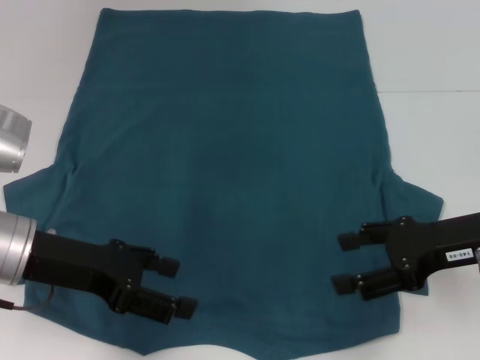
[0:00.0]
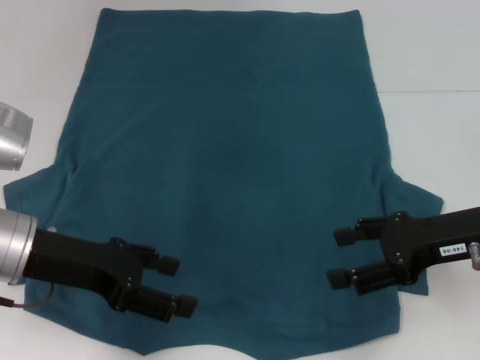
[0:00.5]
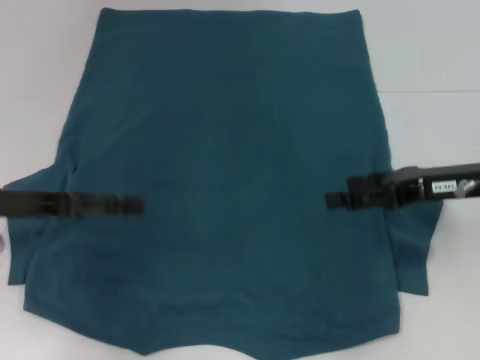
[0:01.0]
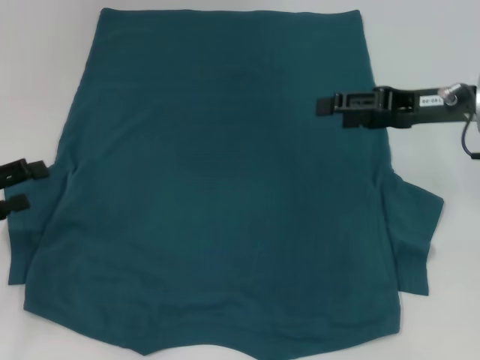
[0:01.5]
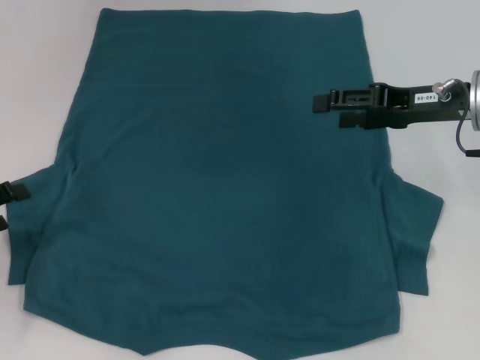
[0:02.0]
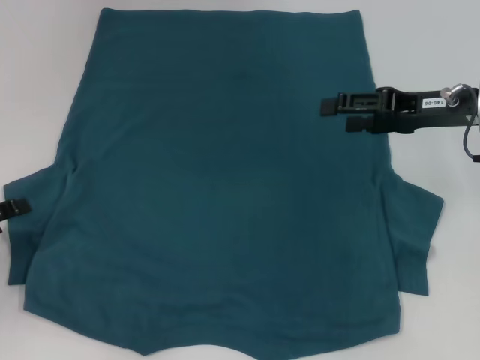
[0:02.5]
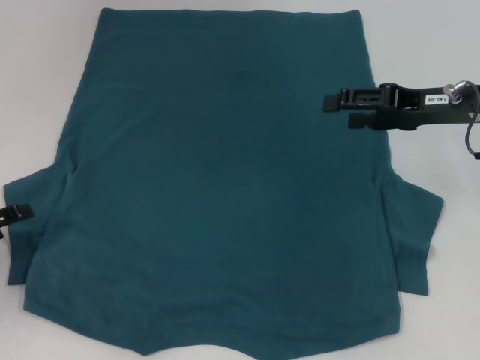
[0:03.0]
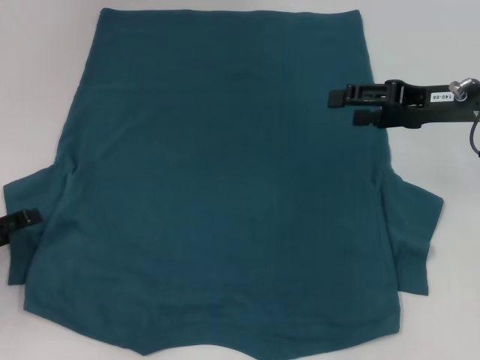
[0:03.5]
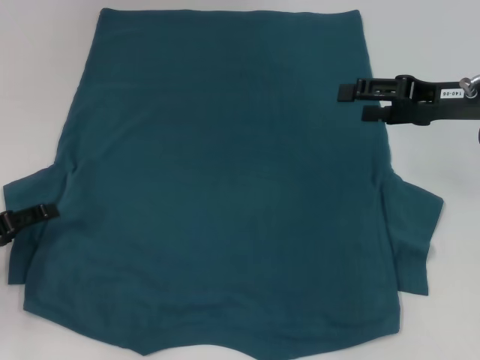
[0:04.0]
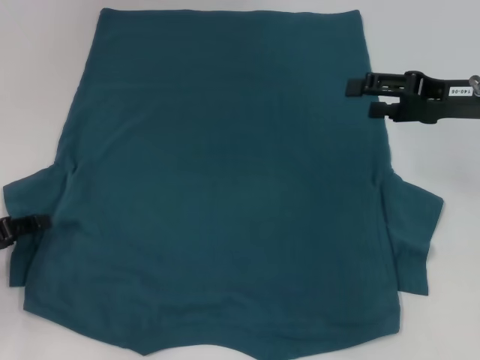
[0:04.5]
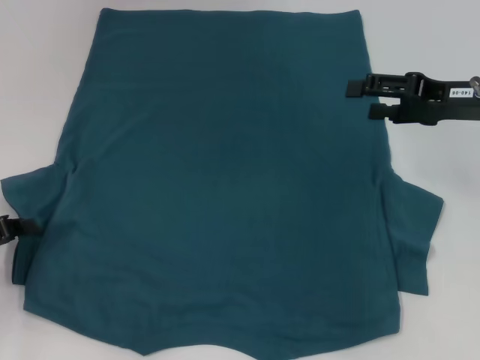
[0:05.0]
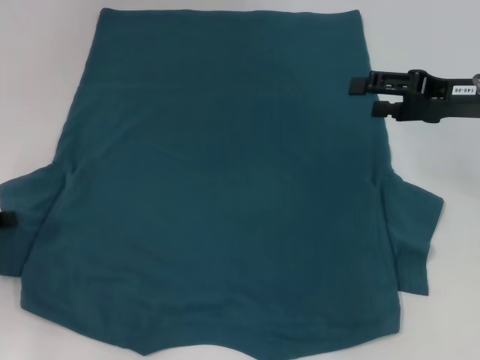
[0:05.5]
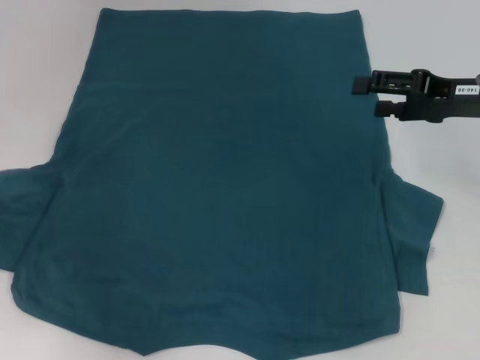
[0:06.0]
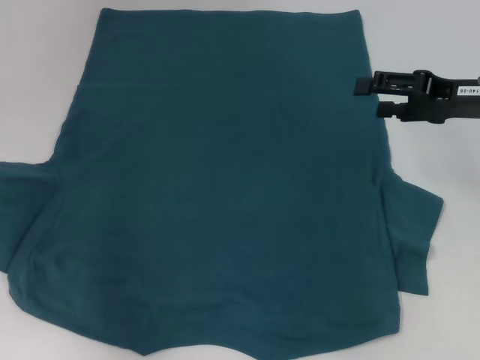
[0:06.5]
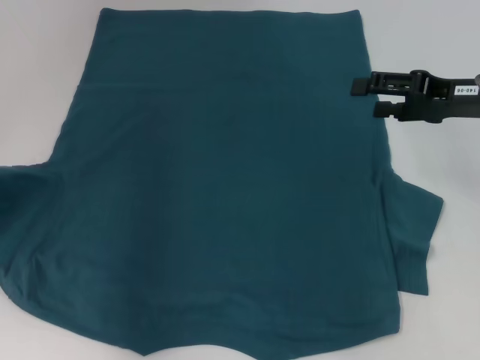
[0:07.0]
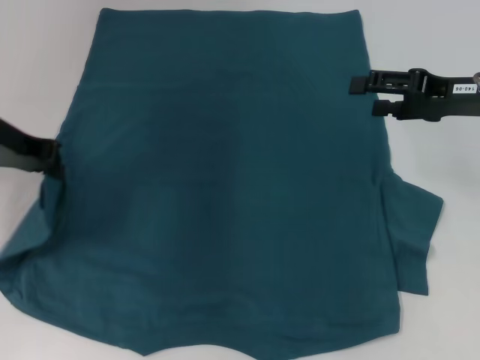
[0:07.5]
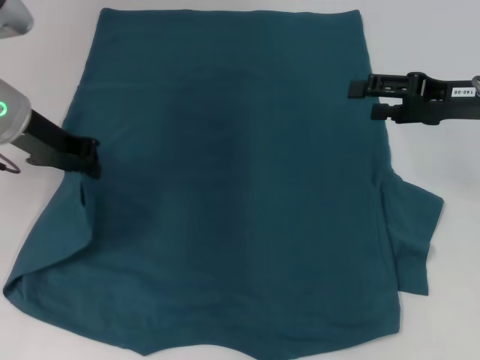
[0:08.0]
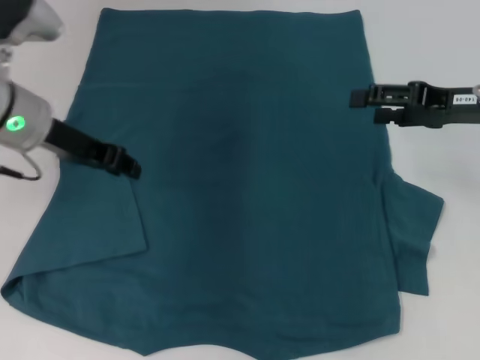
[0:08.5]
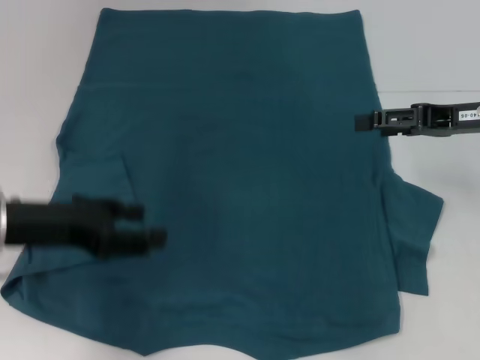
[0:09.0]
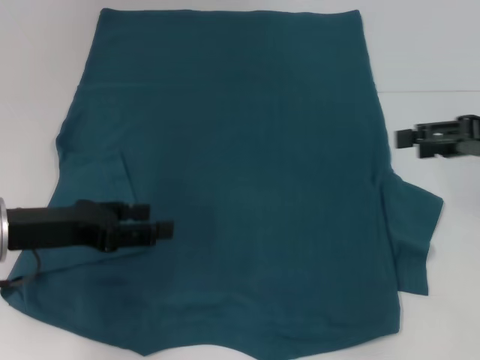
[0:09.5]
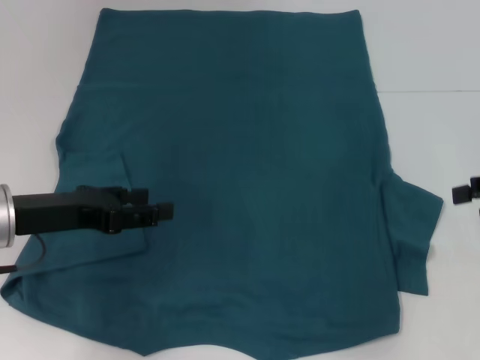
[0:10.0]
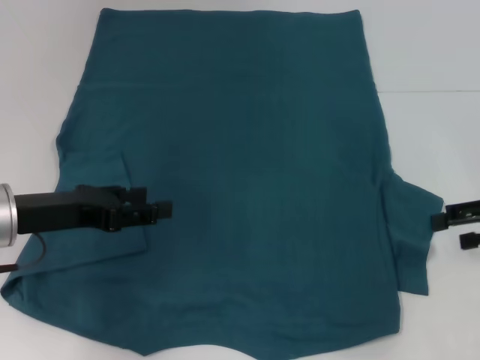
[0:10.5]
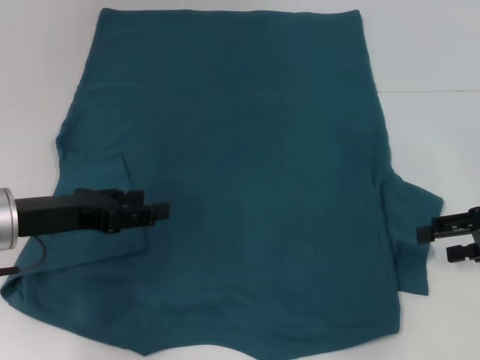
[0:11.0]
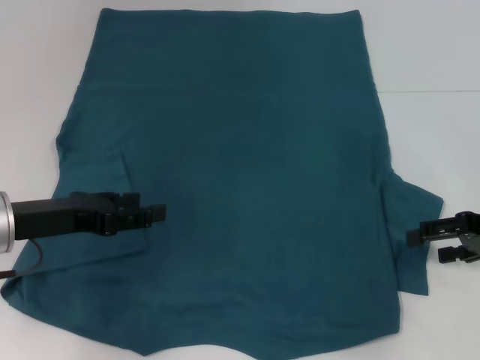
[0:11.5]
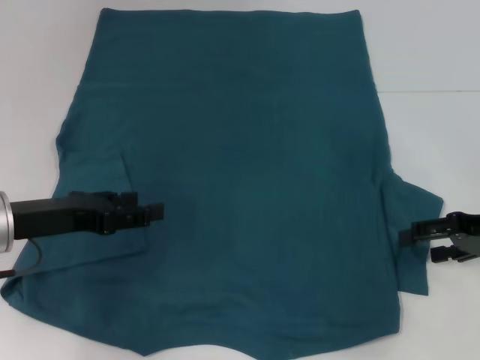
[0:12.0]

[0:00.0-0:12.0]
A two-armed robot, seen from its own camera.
Step, 0:00.0 to 0:08.0: Fold the bottom left sleeve with your left hand.
0:00.0 to 0:02.0: The left gripper heads to the left, covering about 15 cm. Meanwhile the right gripper is displaced forward by approximately 10 cm.
0:02.0 to 0:04.0: The grippers stay close to where they were, moving slightly.
0:04.0 to 0:06.0: The left gripper goes some 10 cm upward and forward, and closes up.
0:06.0 to 0:08.0: The left gripper moves to the right, forward and upward, some 15 cm.
0:08.0 to 0:10.0: The right gripper moves to the right and backward, approximately 10 cm. Meanwhile the left gripper travels backward and downward by roughly 10 cm, and opens up.
0:10.0 to 0:12.0: The right gripper shifts some 5 cm downward.

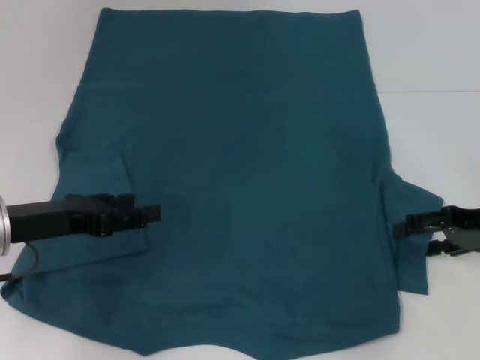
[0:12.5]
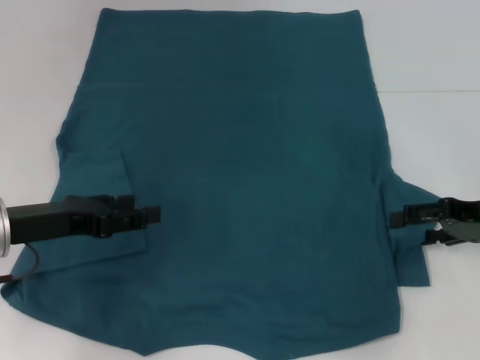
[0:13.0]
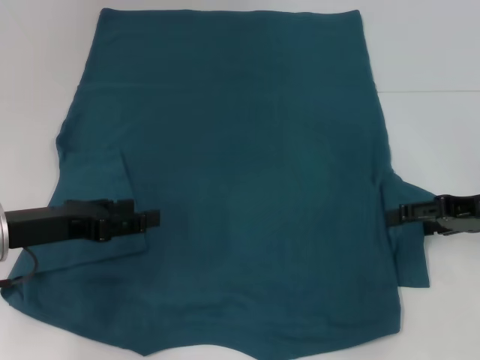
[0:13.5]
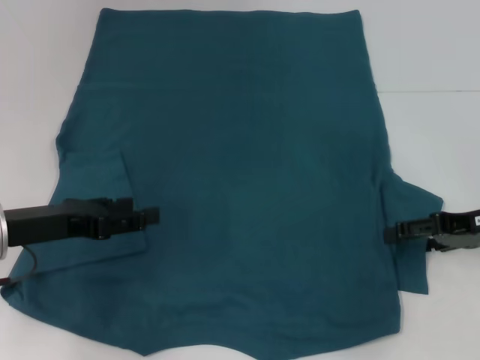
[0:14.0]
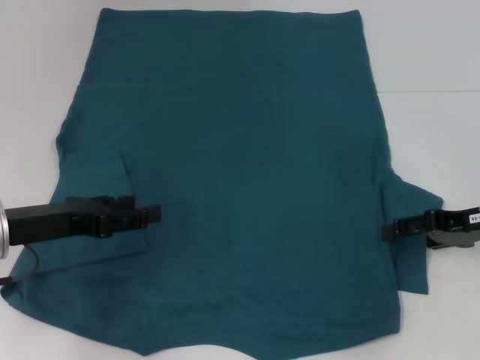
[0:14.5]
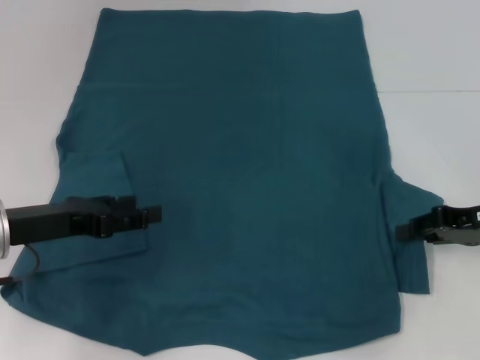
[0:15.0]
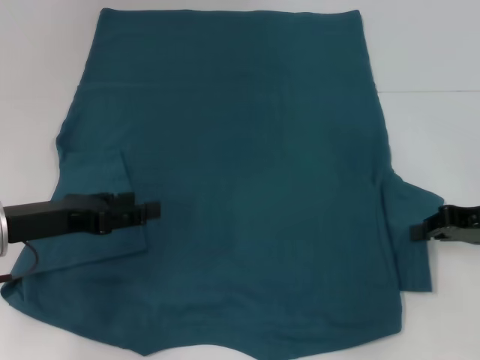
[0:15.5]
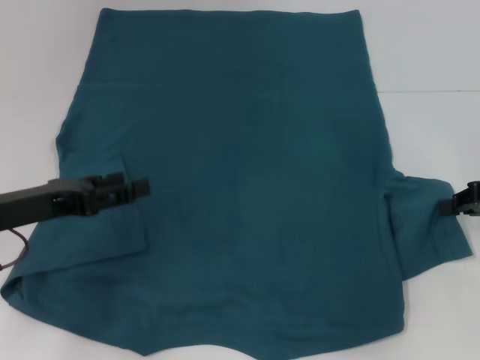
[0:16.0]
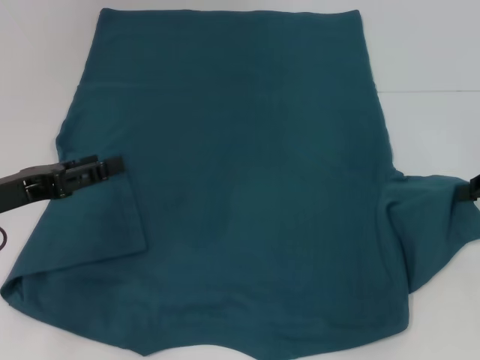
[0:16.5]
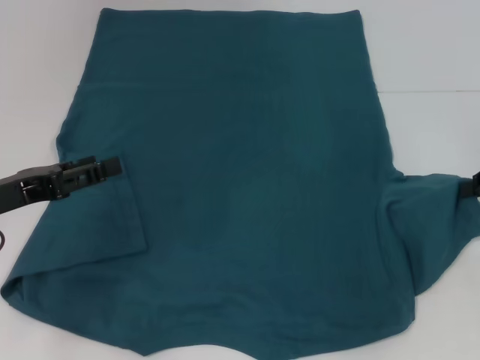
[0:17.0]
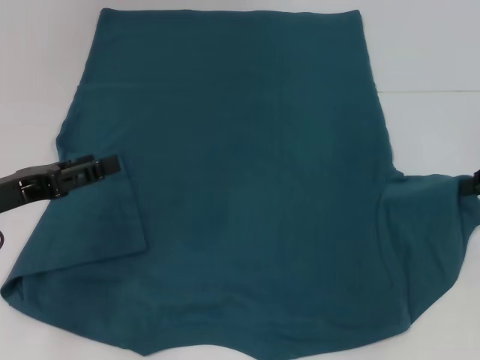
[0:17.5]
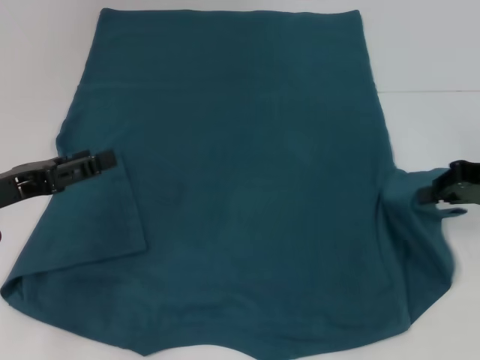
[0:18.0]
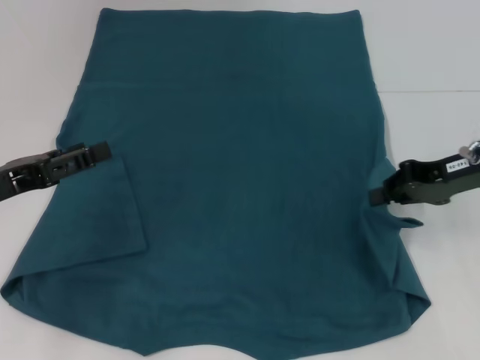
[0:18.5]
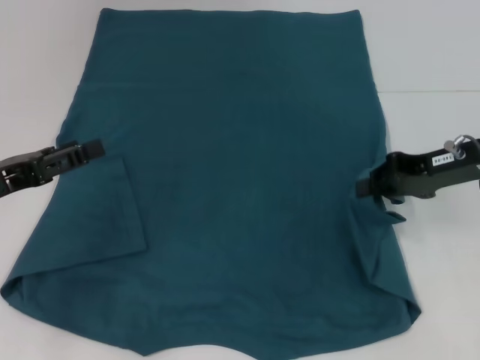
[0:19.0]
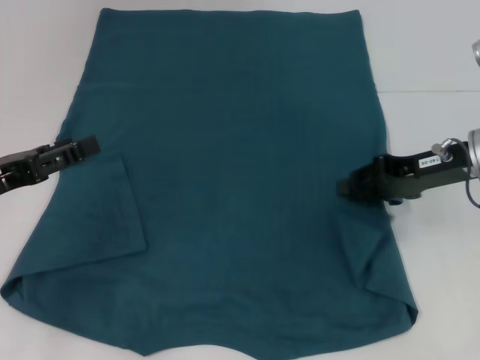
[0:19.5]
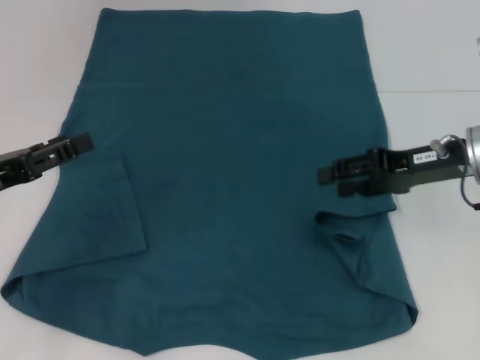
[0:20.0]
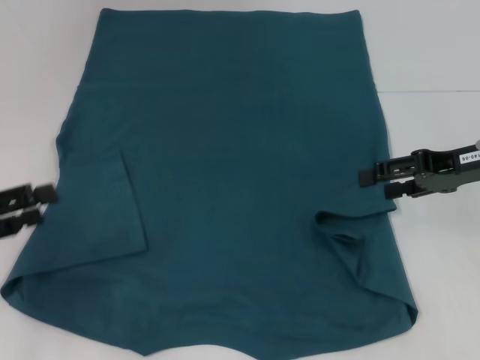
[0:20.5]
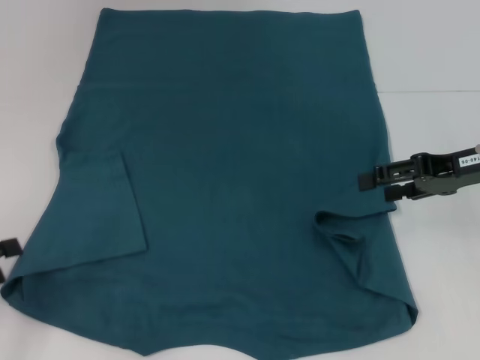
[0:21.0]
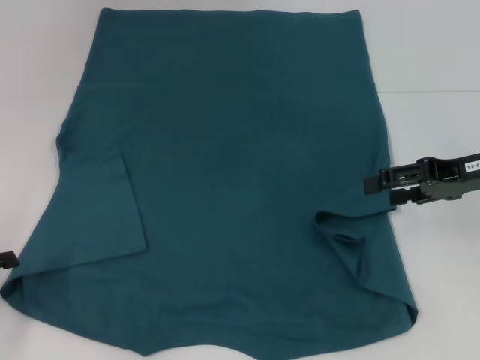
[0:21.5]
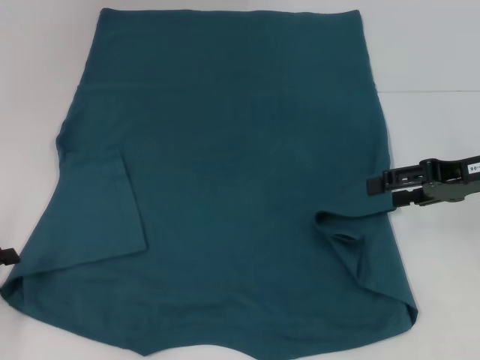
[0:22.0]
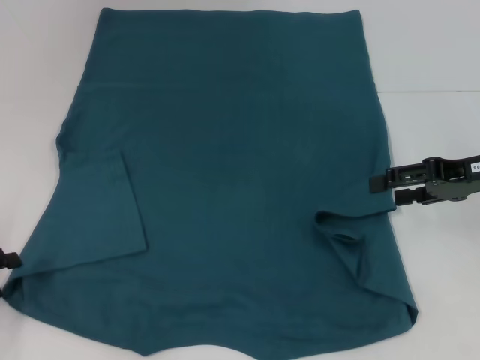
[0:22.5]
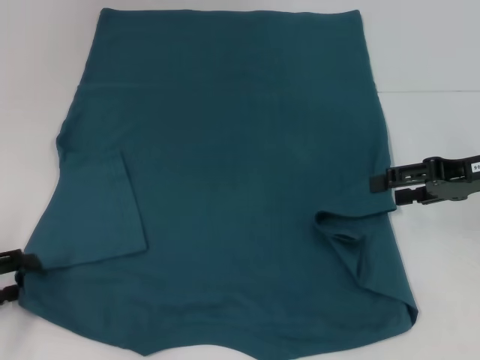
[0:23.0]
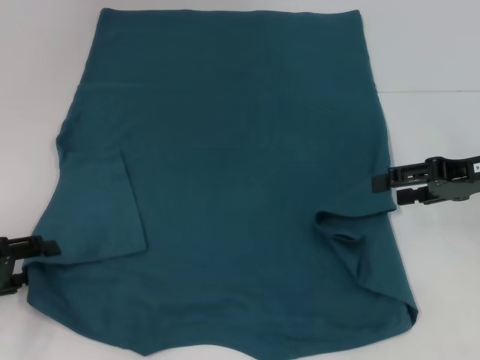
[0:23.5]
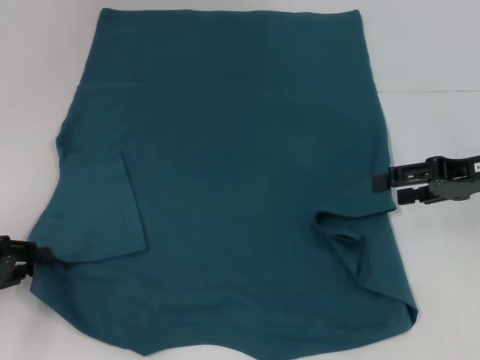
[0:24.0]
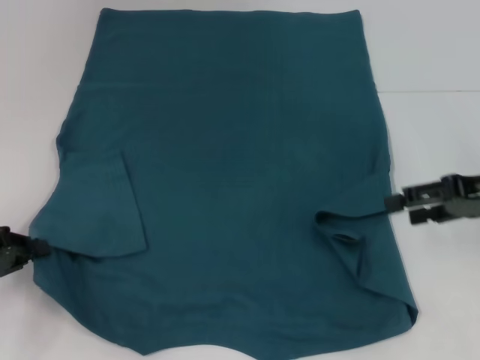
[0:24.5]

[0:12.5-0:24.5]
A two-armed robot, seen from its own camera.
Step, 0:12.5 to 0:19.5: Fold the bottom right sleeve to the right.
Step, 0:20.0 to 0:24.0: Grab the bottom left corner with your left hand.
0:12.5 to 0:14.5: The grippers stay close to where they were, moving slightly.
0:14.5 to 0:16.5: The right gripper moves to the right, some 5 cm, and closes up.
0:16.5 to 0:18.5: The right gripper shifts some 10 cm to the left.
0:18.5 to 0:20.5: The left gripper moves roughly 5 cm. The right gripper opens.
0:20.5 to 0:22.5: The left gripper is displaced downward by some 5 cm.
0:22.5 to 0:24.5: The left gripper closes up.

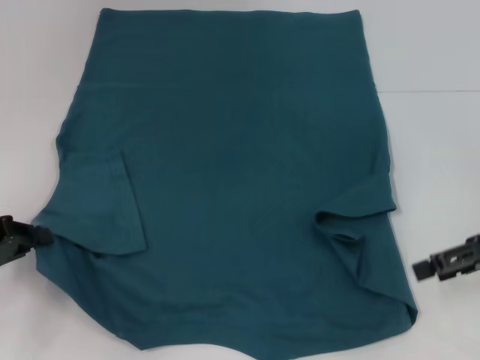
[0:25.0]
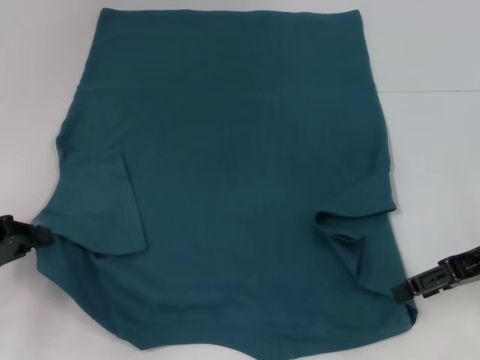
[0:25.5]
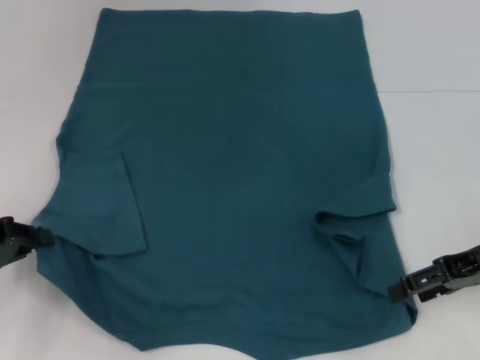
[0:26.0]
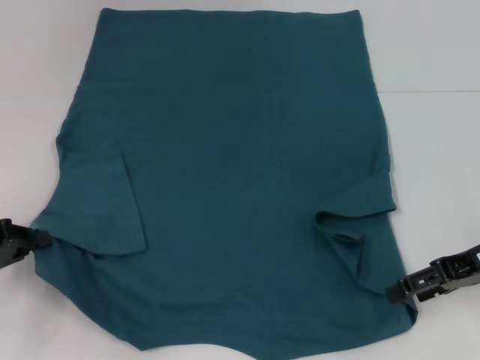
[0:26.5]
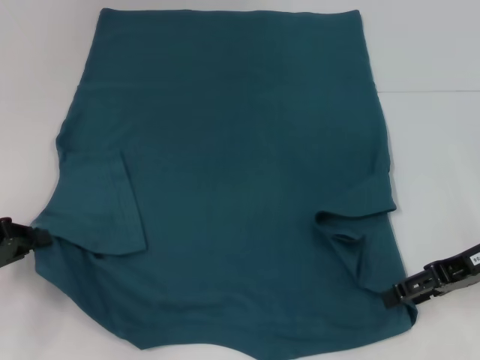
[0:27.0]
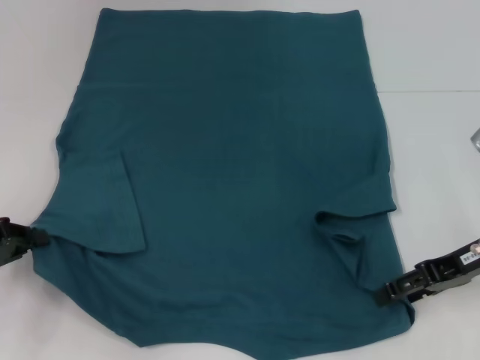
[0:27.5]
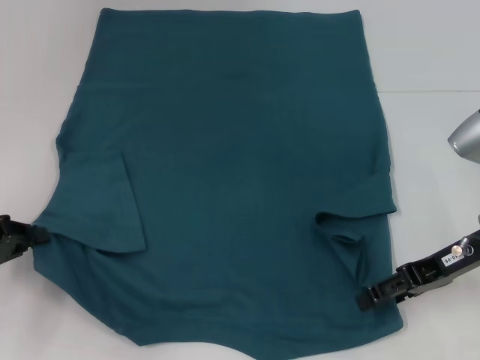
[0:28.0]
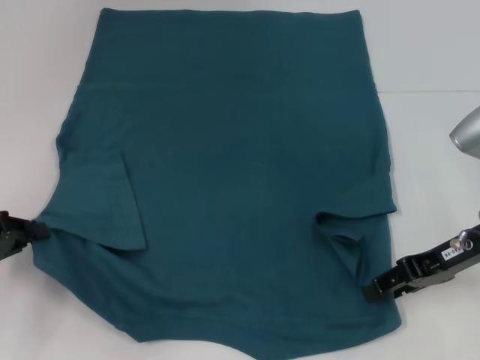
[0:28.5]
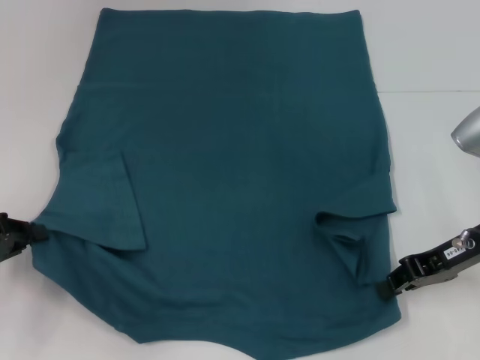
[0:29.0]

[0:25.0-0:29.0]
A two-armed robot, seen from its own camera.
0:25.0 to 0:27.0: The grippers move only a little.
0:27.0 to 0:29.0: The right gripper closes.
